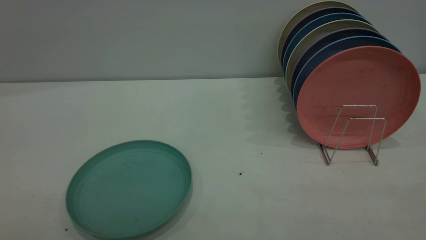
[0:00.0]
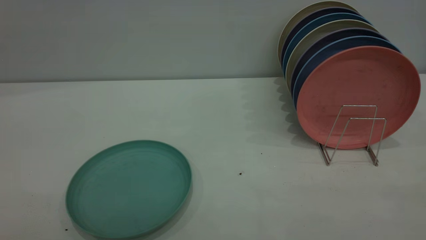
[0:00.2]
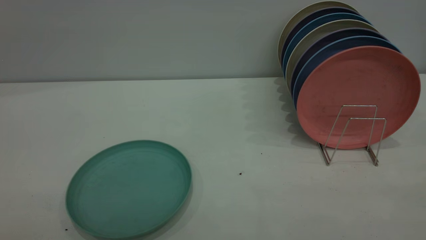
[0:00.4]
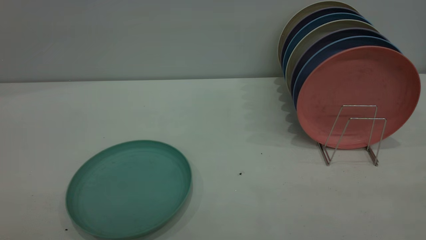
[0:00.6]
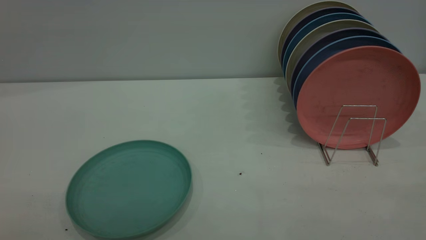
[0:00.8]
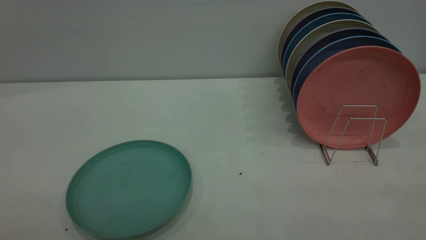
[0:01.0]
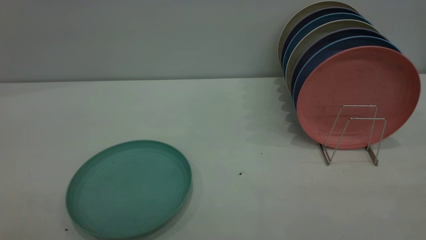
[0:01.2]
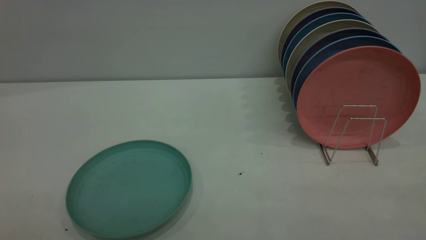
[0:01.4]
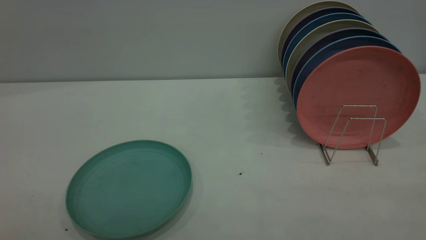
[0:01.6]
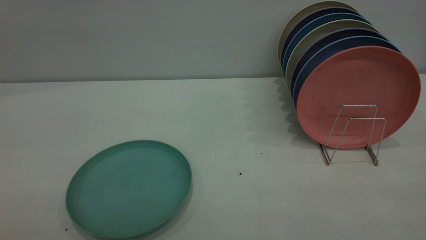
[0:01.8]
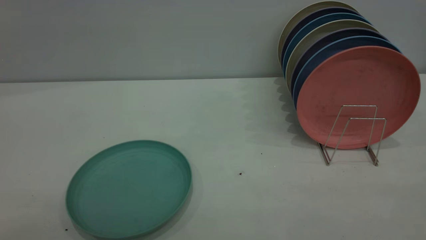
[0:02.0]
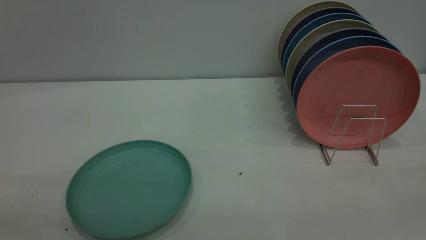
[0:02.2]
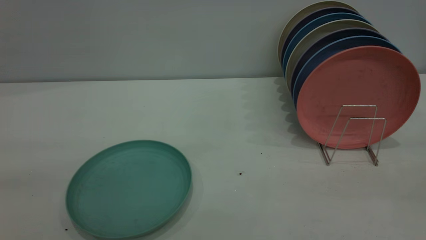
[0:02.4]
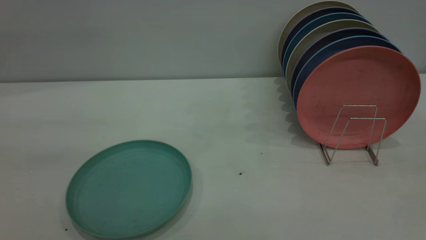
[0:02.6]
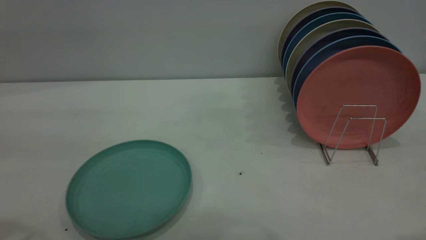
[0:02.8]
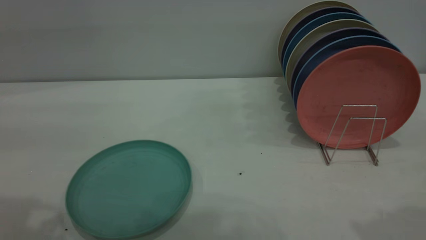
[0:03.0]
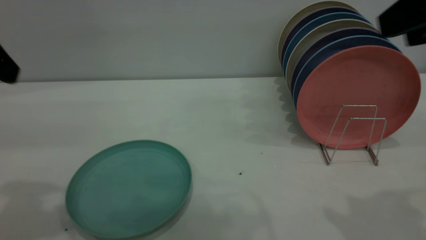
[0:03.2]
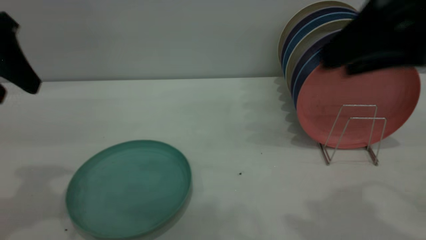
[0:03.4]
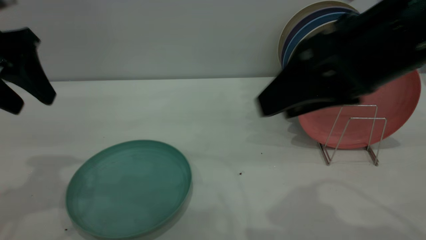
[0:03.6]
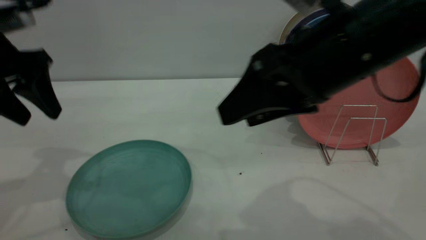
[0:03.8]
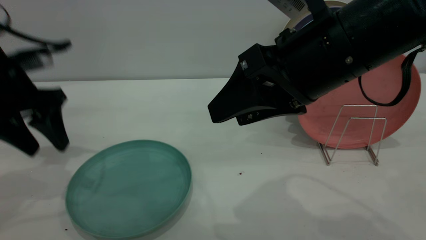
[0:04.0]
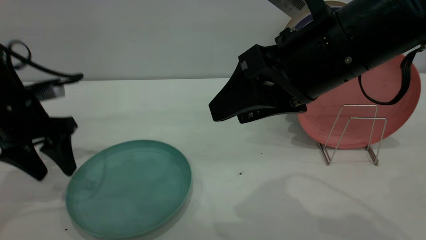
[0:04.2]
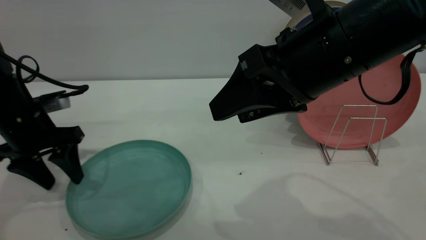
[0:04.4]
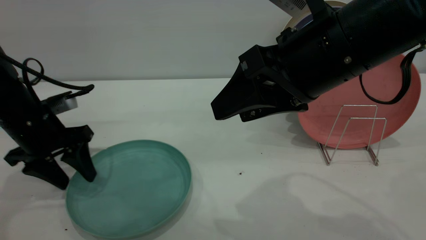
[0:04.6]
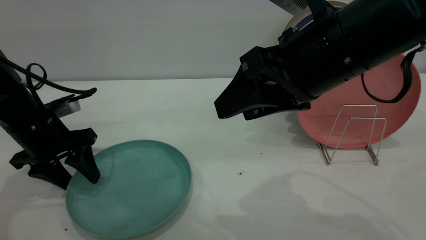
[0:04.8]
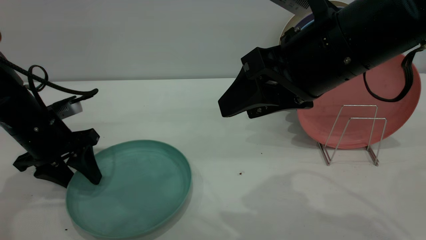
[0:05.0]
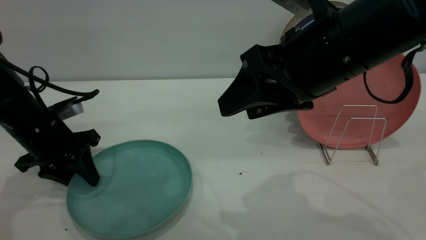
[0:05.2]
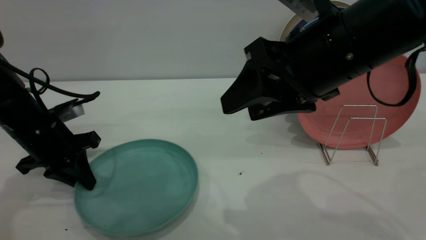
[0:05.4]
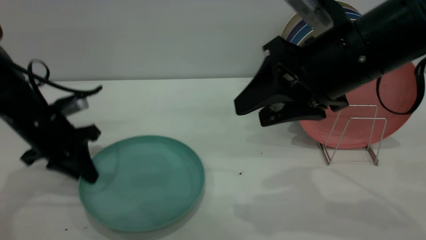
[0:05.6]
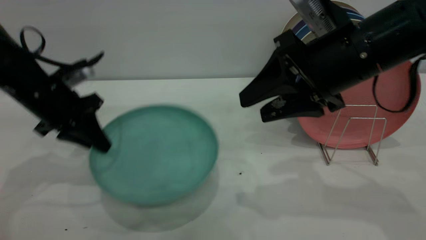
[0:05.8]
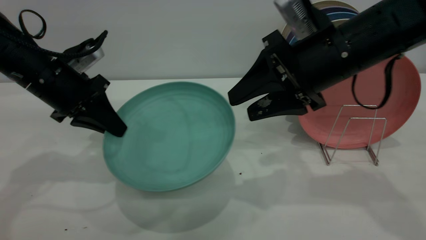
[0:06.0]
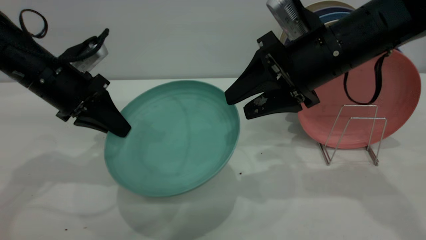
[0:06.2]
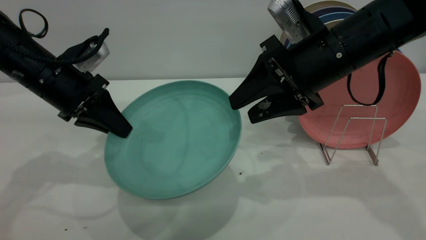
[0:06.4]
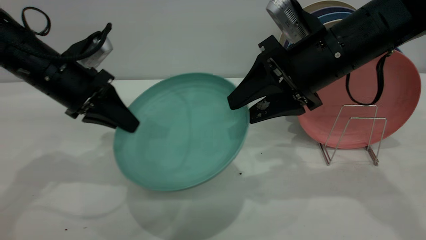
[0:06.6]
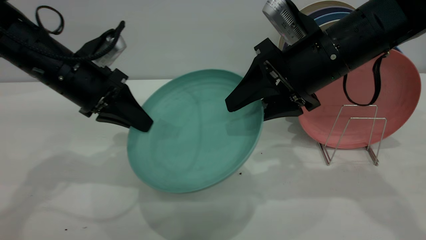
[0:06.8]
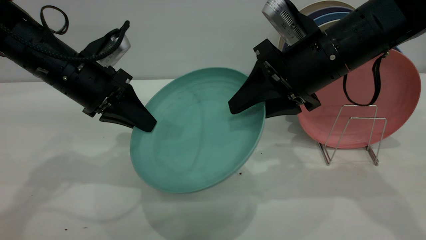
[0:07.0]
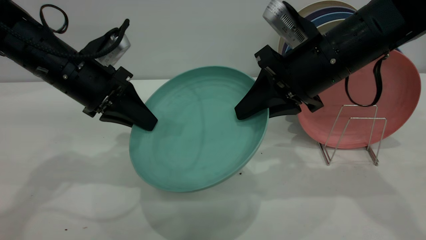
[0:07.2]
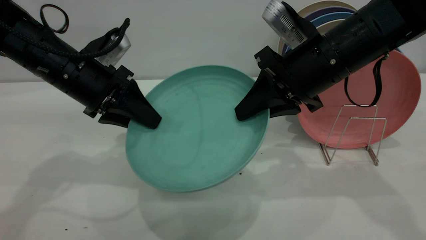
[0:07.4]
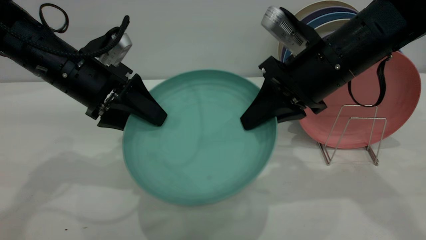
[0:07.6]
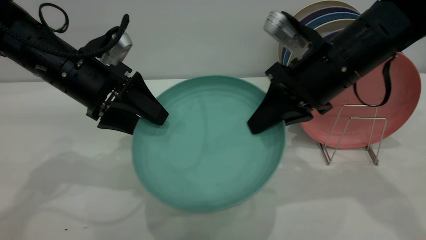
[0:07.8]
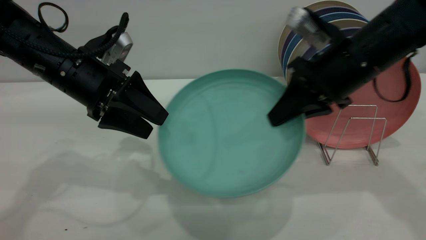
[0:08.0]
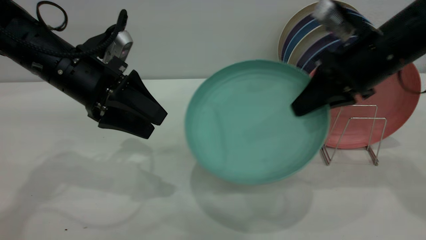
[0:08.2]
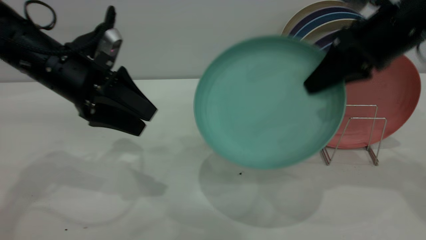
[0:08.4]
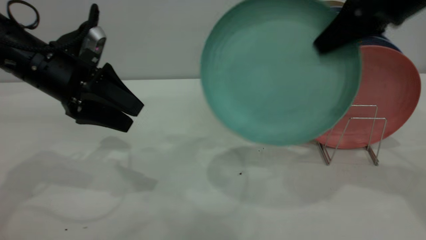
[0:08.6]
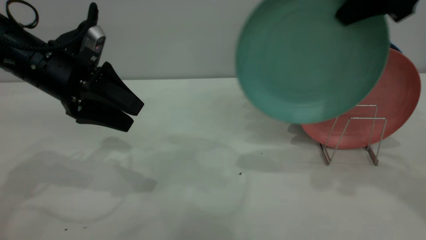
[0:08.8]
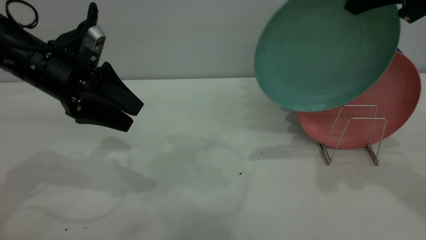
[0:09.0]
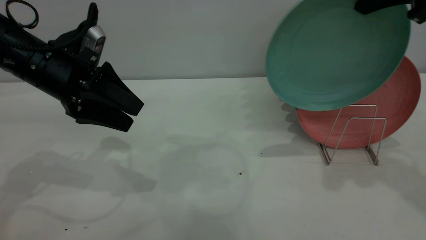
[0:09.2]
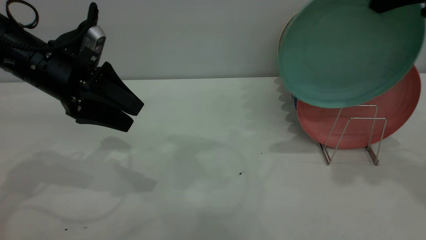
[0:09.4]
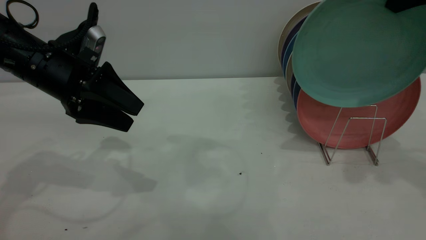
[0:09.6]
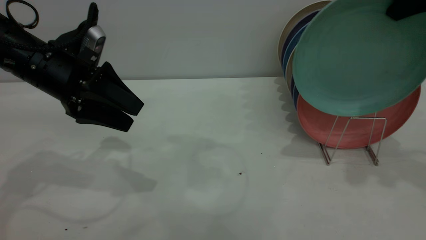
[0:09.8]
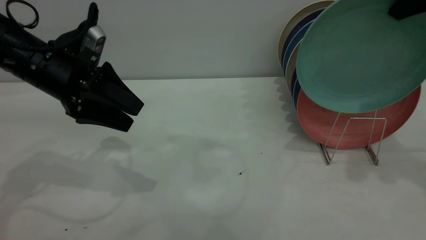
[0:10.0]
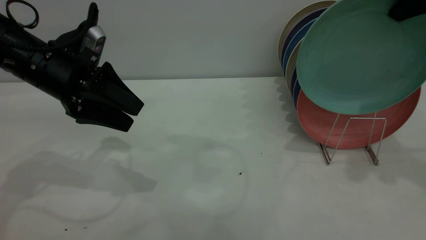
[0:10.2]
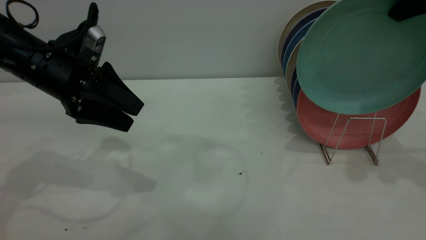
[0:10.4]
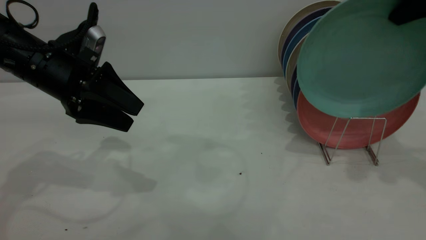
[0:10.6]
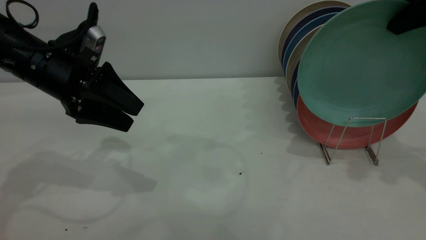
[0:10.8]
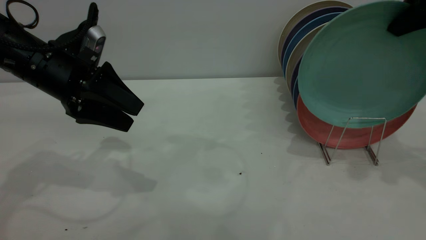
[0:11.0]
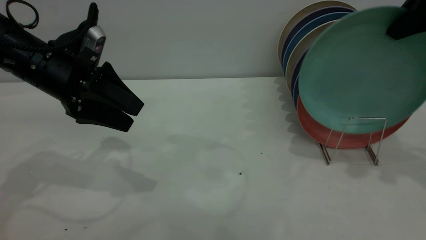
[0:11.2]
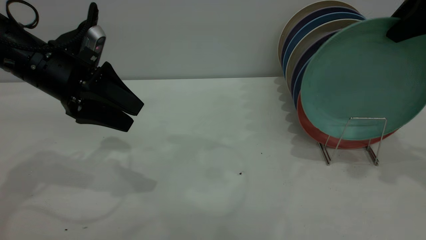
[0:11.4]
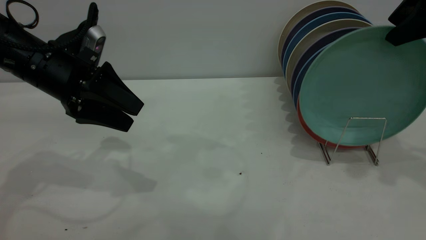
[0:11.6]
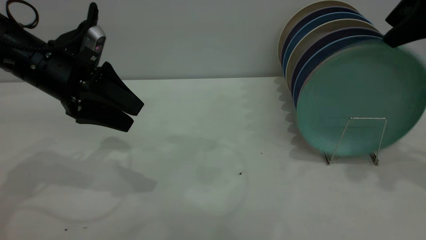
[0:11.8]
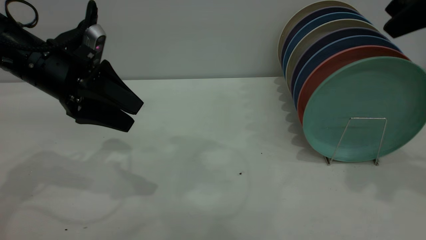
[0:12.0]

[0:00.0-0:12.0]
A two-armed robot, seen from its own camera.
Task of the whole recording: the left gripper grasp the green plate, the left gripper pass the green plate to the right gripper, and the right gripper place the green plate on the plate rack.
Step, 0:00.0 to 0:05.6: Pick up the plate with the left gripper.
Step, 0:06.0 to 0:08.0: Pass the plate from the left gripper to the right gripper.
Step, 0:08.4 to 0:12.0: Place the plate on the shelf.
0:00.0 to 0:01.6: Both grippers stay put.
0:03.0 to 0:04.4: The right gripper heads to the left, downward and forward, covering approximately 20 cm. The left gripper moves downward and forward, roughly 25 cm.
0:04.4 to 0:06.0: The left gripper moves some 5 cm, and closes up. The right gripper is displaced forward by approximately 10 cm.
0:06.0 to 0:07.6: The left gripper opens up; the right gripper closes its fingers.
0:07.6 to 0:09.0: The right gripper goes approximately 15 cm upward and to the right.
0:09.0 to 0:10.4: The right gripper moves to the right, about 5 cm.
0:10.4 to 0:12.0: The right gripper opens its fingers.

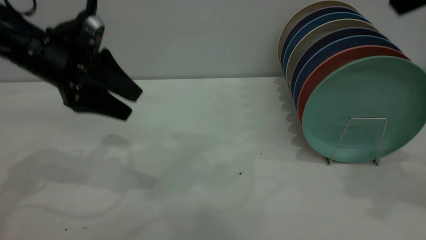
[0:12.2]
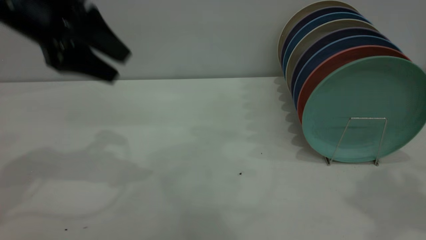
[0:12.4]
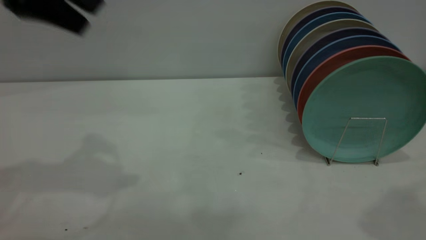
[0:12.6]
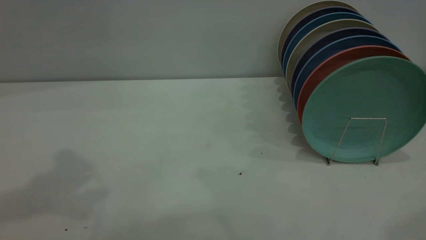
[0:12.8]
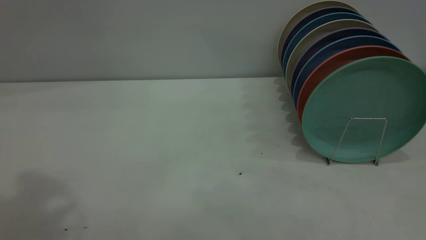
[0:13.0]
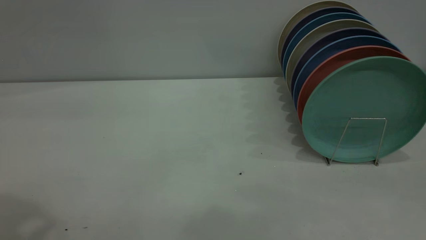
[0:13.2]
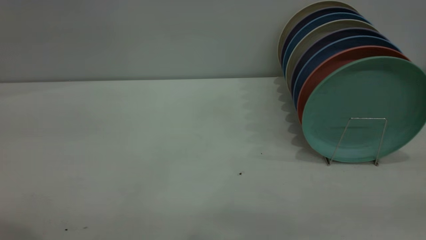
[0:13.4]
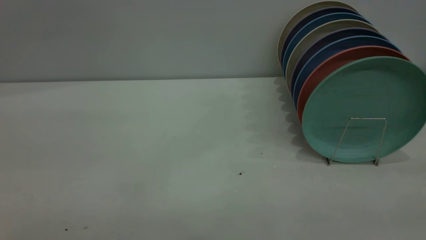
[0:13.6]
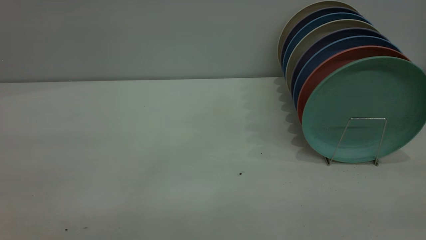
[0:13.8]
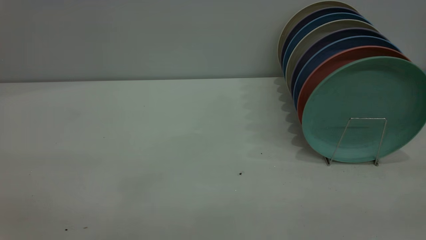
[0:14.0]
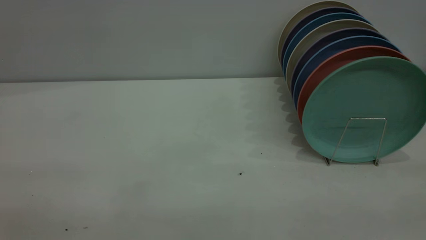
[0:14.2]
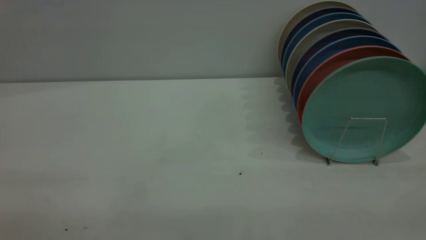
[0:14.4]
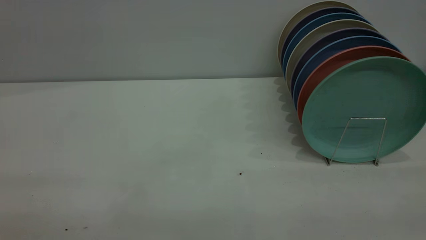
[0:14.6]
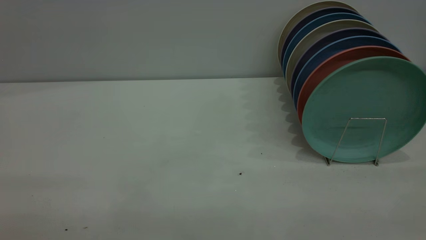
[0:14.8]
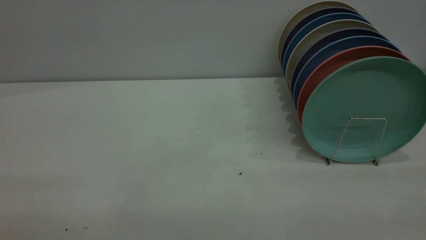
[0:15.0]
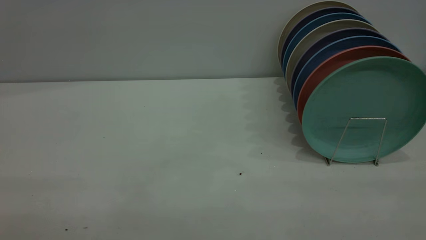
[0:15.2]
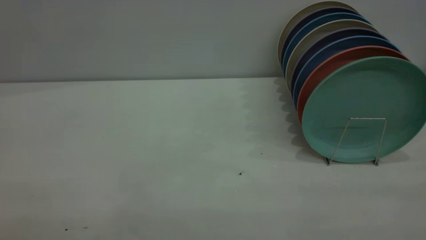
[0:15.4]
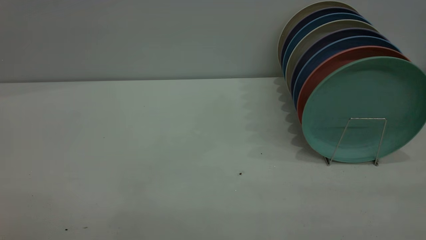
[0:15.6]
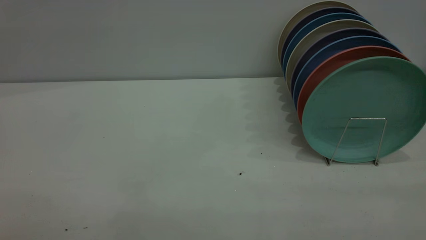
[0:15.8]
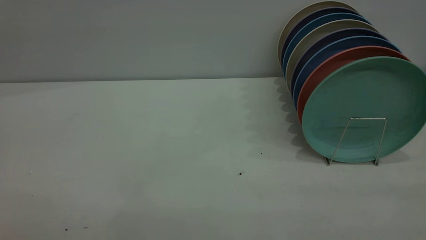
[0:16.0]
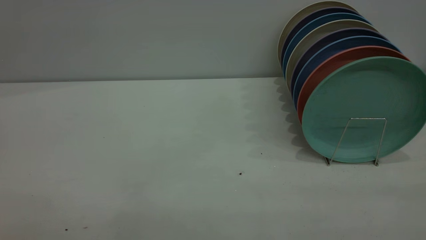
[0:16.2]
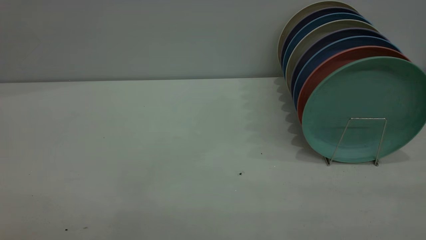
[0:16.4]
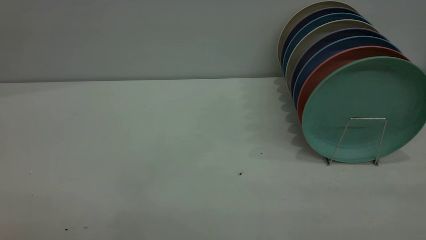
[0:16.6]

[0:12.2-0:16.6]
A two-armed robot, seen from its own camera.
Task of the whole recording: the left gripper grasp the green plate, the left gripper pass the green plate to the right gripper, and the right gripper place the green plate on the plate rack.
0:12.2 to 0:13.6: The left gripper heads backward and upward, covering some 30 cm.
